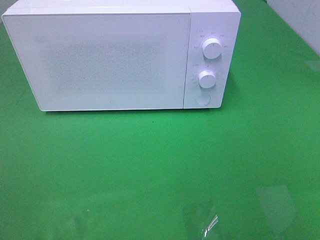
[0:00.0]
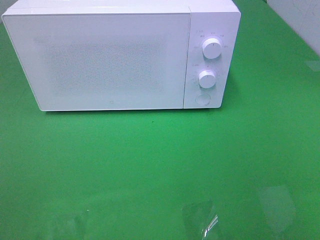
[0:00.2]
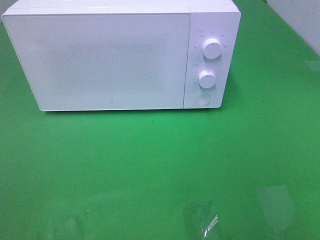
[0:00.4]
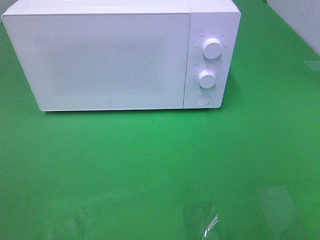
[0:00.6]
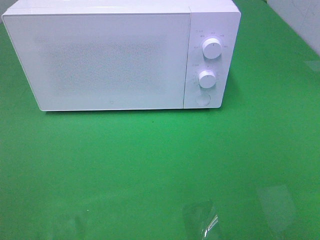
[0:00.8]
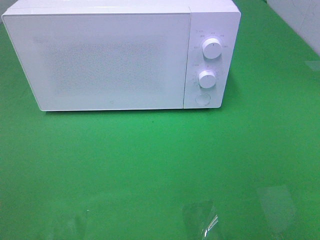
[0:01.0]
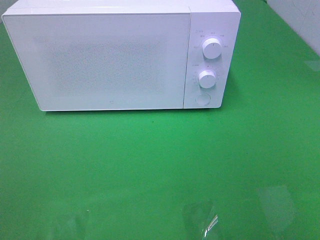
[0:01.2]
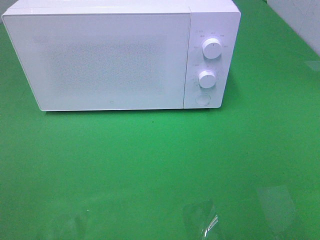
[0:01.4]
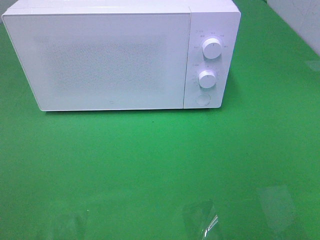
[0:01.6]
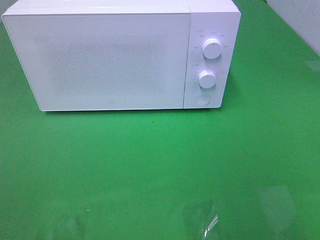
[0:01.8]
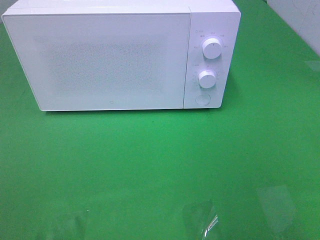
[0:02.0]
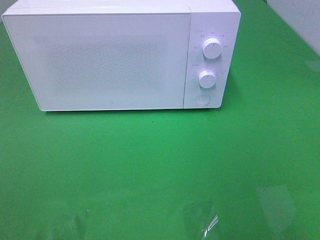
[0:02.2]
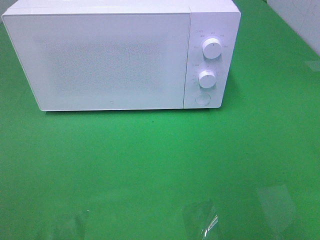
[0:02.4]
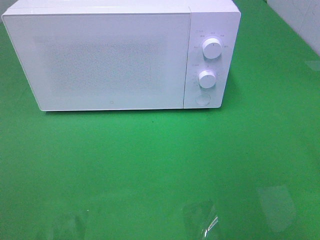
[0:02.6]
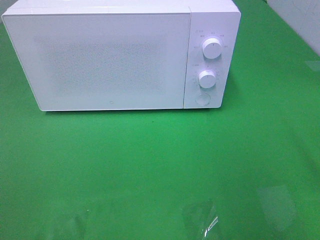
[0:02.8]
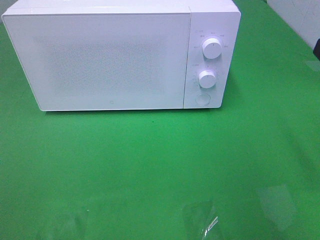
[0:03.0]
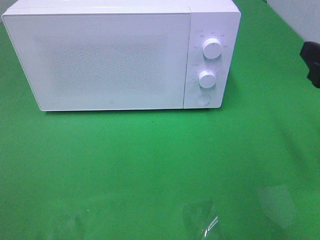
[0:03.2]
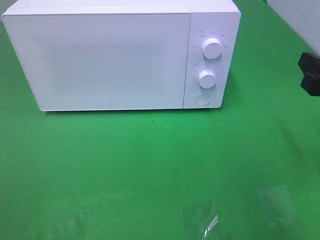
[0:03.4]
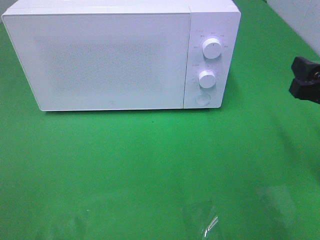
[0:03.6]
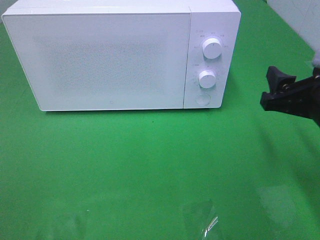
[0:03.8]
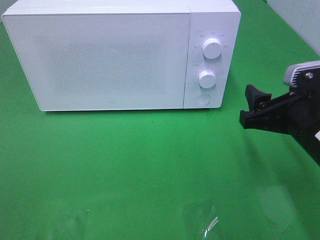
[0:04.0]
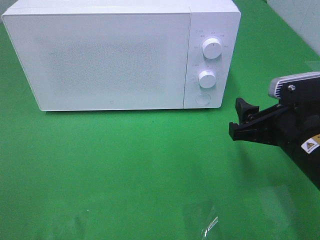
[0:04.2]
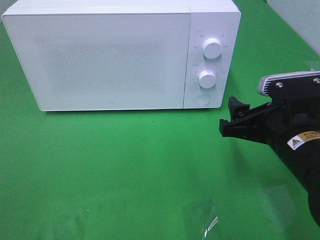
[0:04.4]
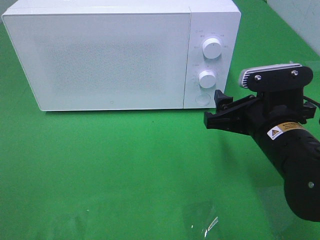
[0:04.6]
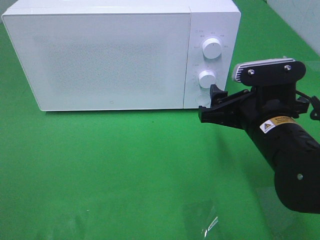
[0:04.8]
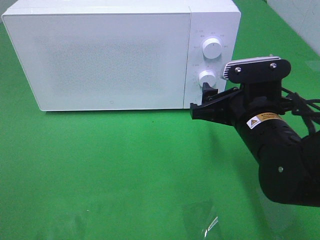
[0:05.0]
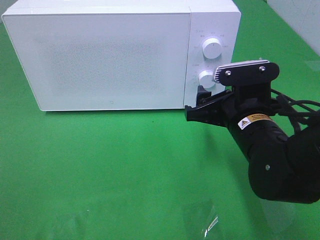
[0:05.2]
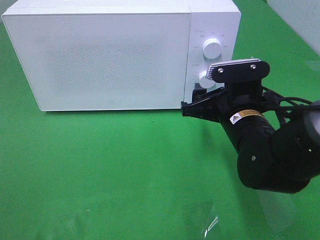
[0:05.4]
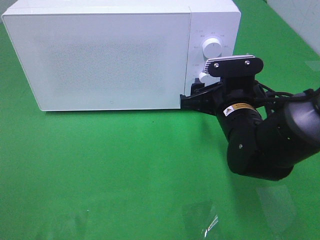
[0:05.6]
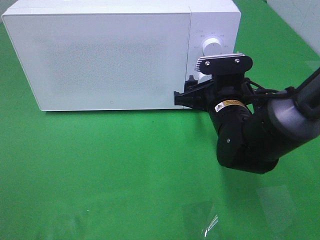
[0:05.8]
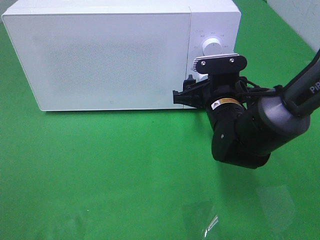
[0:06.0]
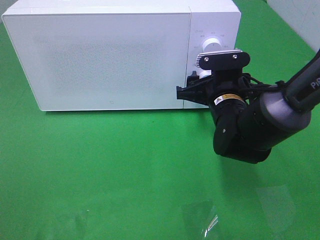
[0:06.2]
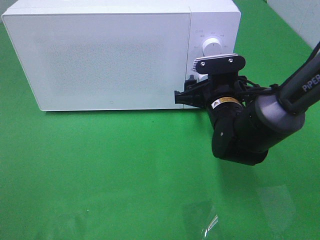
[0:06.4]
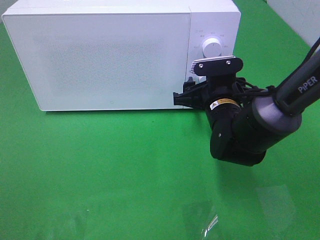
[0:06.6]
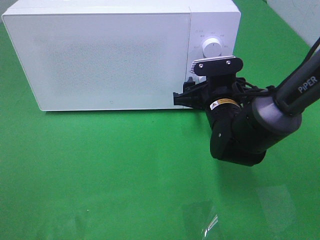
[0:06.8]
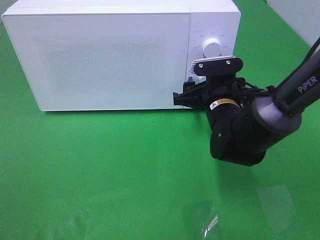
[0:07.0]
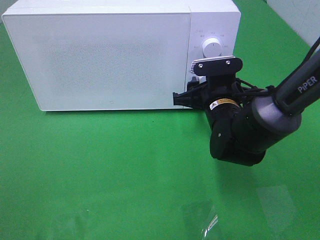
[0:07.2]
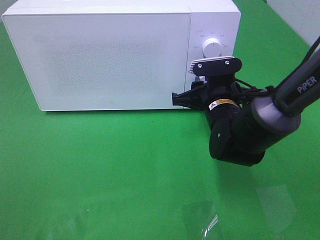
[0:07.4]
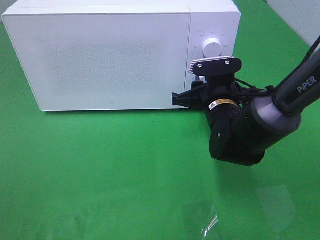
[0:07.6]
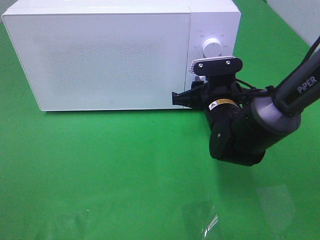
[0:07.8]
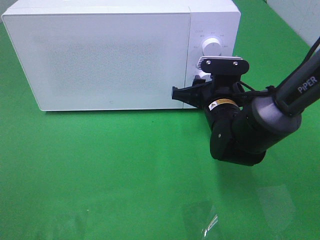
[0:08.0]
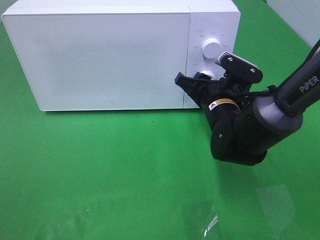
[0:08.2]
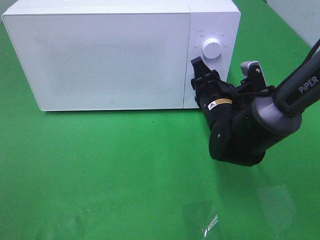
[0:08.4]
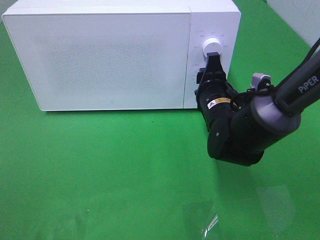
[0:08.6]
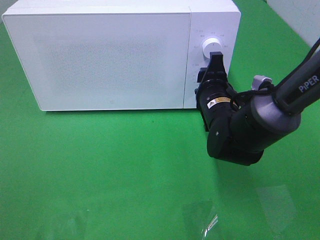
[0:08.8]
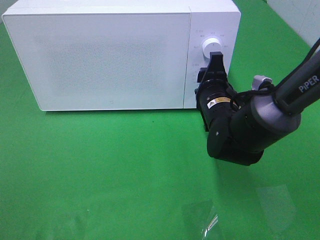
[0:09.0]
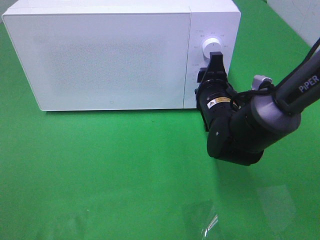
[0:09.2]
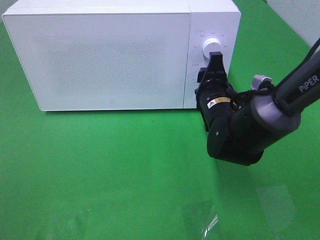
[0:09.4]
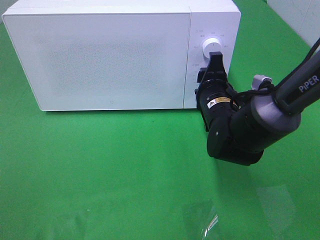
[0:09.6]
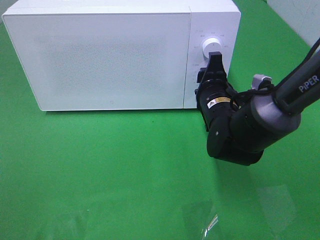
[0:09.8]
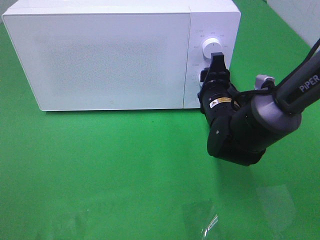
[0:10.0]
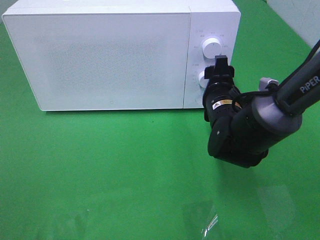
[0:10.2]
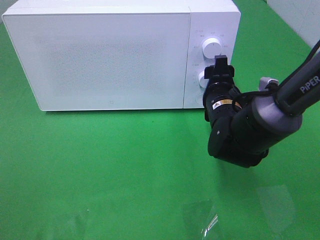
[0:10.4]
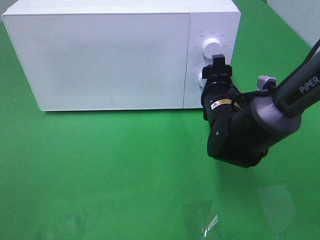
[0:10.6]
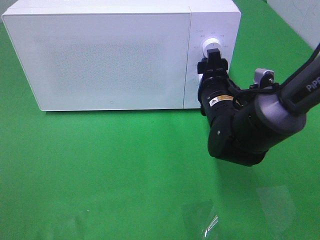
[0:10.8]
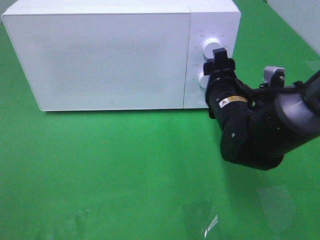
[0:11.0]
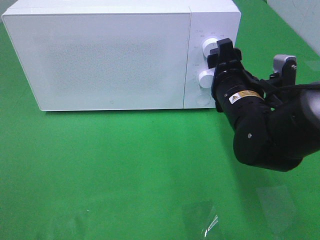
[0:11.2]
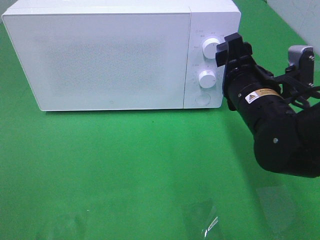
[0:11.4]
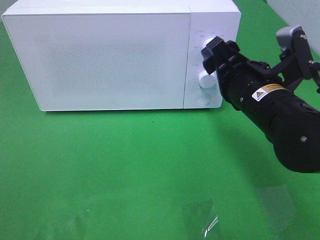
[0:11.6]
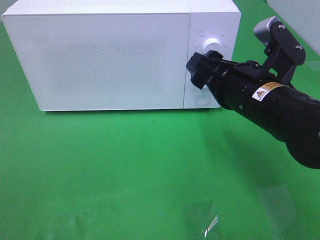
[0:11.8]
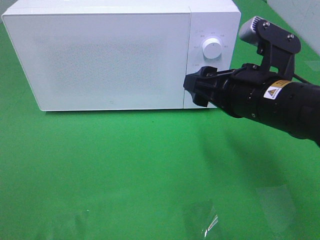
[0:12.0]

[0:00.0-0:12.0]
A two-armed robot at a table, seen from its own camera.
Task of the whole recording: Heat the burger.
Step, 0:00.0 to 0:10.6: Right hand: twist timer button.
0:03.0 to 0:04.4: The right gripper heads downward and to the left, covering roughly 15 cm.
0:04.4 to 0:06.0: The right gripper goes roughly 15 cm forward and to the left.
0:06.0 to 0:07.6: The right gripper closes.
0:09.0 to 0:10.4: The grippers stay close to where they were, moving slightly.
0:10.4 to 0:12.0: The right gripper is displaced upward and backward by approximately 15 cm.

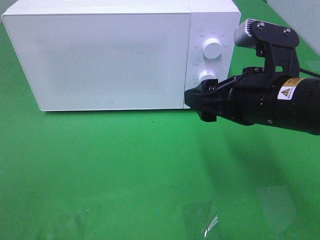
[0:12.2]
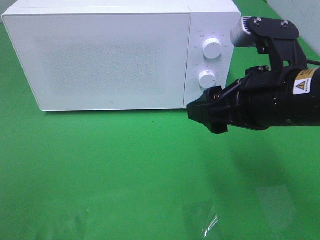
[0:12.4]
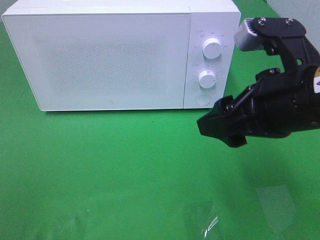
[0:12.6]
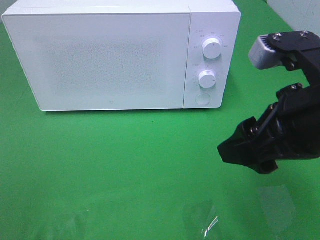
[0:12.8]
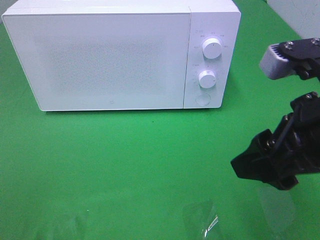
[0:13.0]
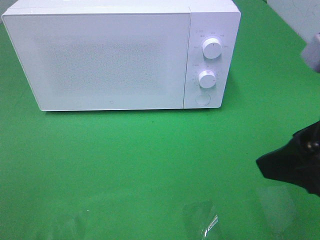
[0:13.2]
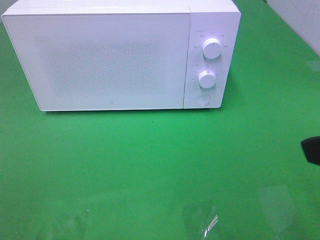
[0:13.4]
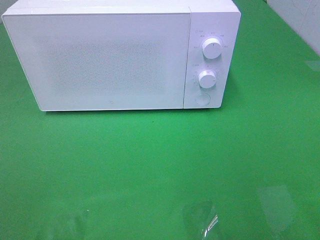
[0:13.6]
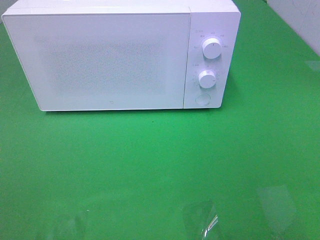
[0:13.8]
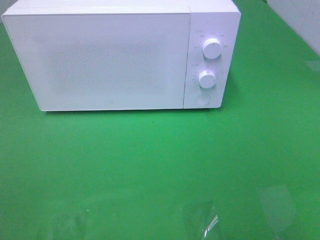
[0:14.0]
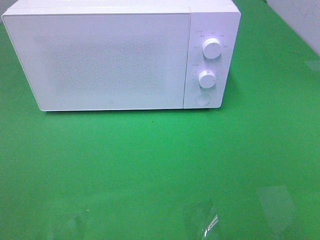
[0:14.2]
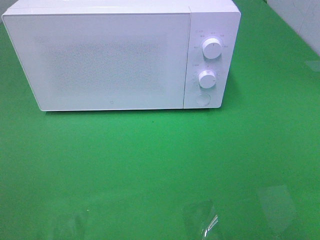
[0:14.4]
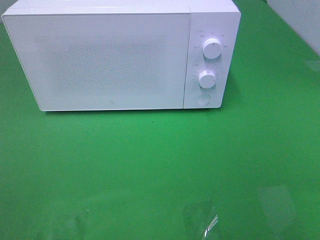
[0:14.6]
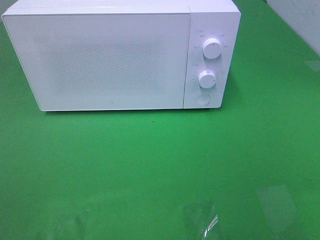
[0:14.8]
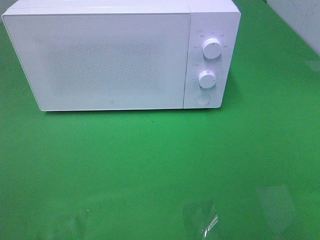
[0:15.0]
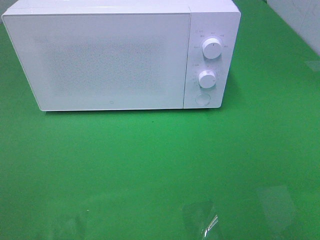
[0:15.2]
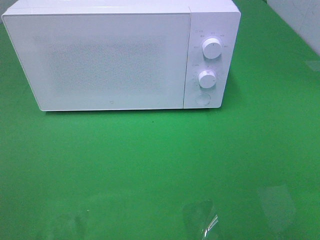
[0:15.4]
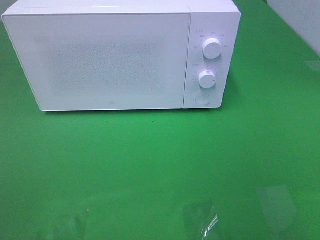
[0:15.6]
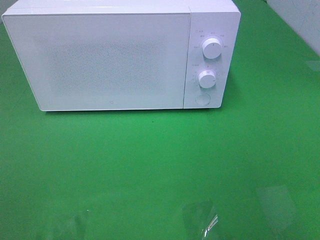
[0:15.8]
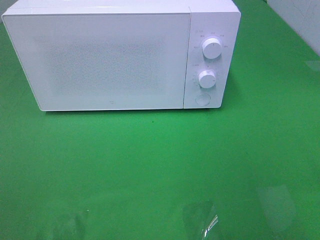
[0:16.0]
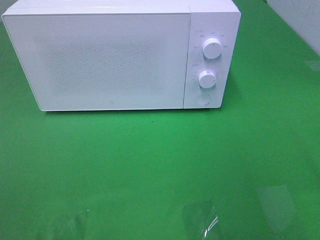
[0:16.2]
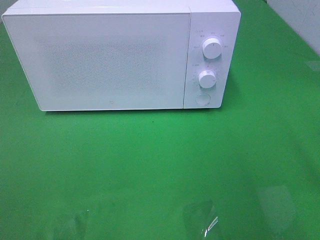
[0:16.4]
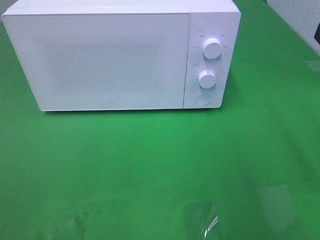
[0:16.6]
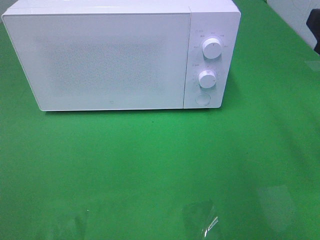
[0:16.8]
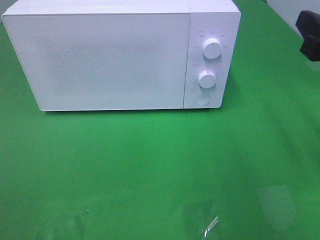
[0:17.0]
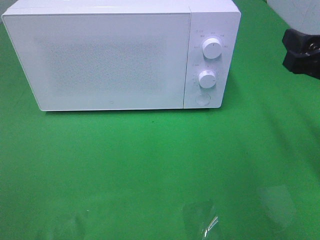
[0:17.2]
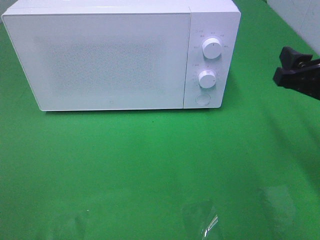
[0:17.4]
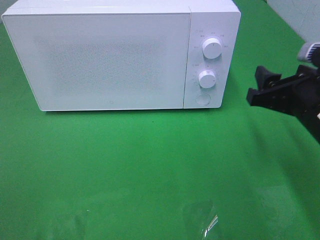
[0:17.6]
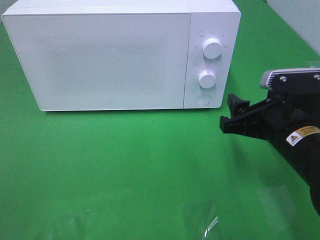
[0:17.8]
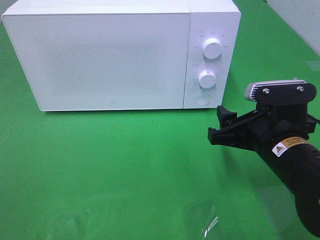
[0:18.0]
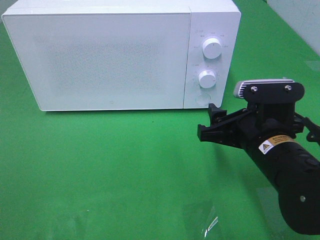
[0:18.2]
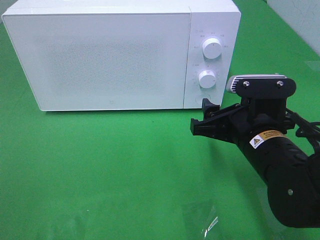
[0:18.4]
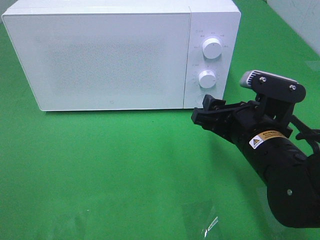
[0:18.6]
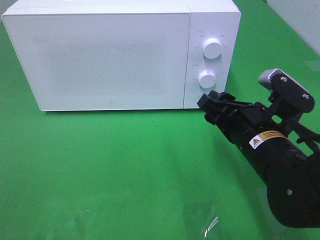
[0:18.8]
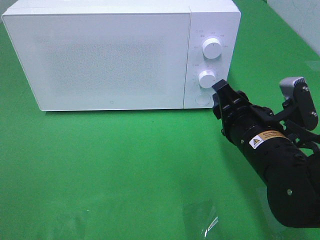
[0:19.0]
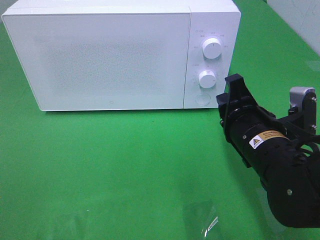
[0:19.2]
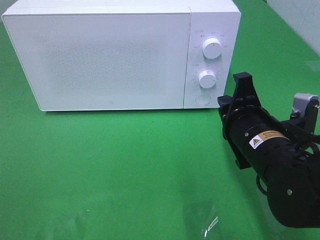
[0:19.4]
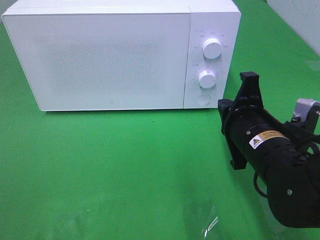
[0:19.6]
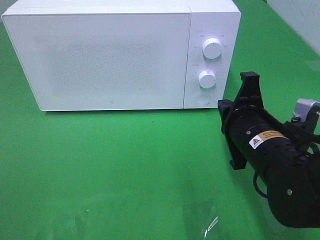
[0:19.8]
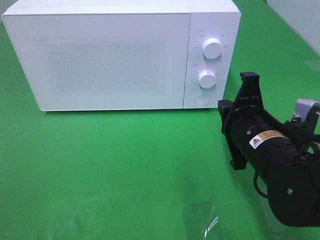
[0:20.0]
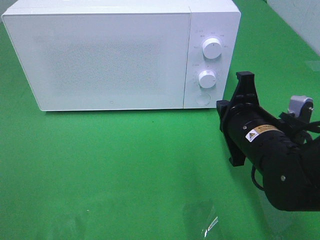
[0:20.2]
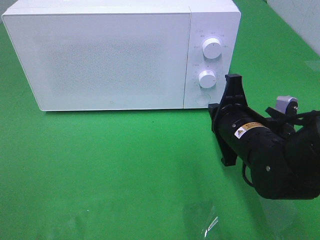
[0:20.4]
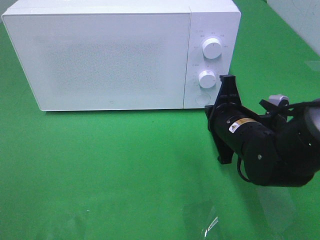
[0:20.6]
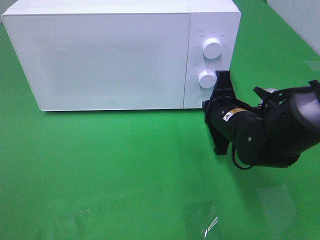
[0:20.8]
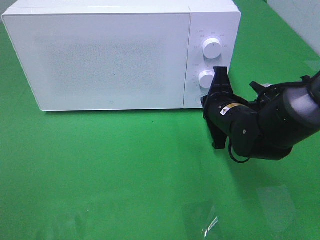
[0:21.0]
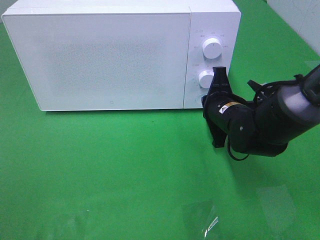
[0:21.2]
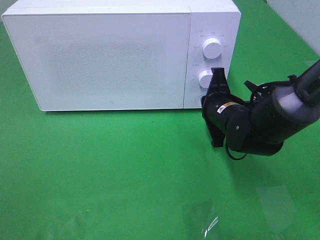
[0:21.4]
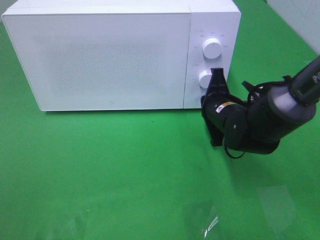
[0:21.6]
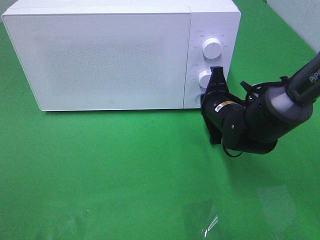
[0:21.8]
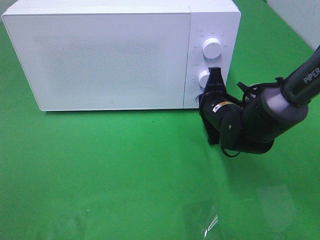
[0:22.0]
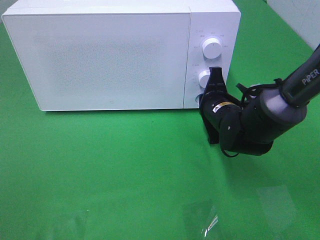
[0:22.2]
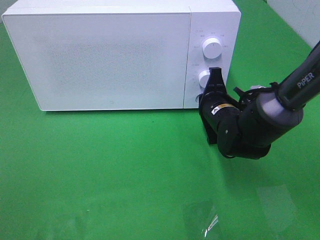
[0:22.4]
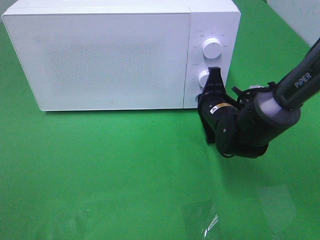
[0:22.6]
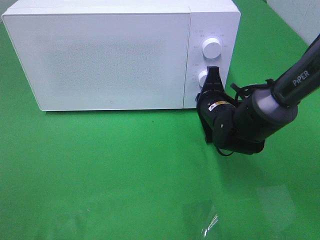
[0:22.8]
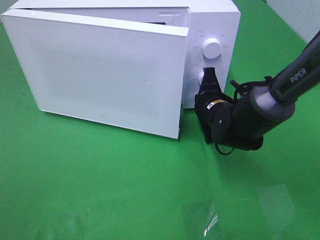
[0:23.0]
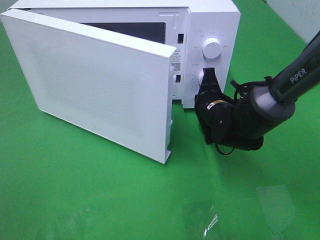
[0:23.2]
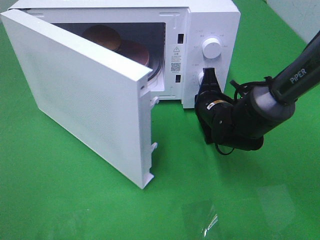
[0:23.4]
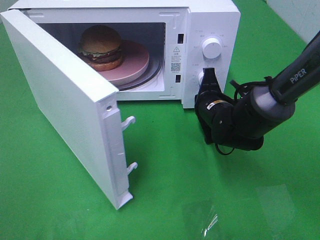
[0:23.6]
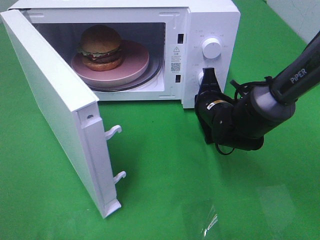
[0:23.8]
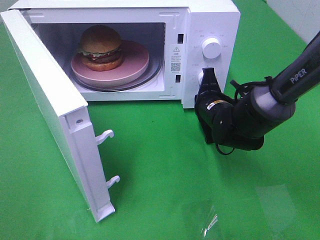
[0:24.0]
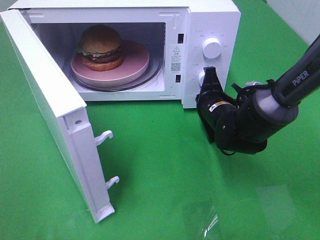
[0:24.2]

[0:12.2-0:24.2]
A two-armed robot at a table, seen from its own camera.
Task of the whole recording: Heat the burger.
0:12.2 to 0:13.8: The right gripper travels backward, to the right and upward by approximately 25 cm.
0:16.6 to 0:18.2: The right gripper shifts approximately 20 cm downward and to the left.
0:18.2 to 0:19.8: The right gripper closes.
0:19.8 to 0:21.2: The right gripper shifts approximately 10 cm forward.
0:21.2 to 0:22.6: There are only small adjustments of the grippers.
